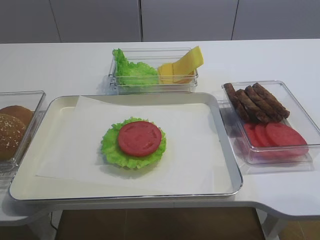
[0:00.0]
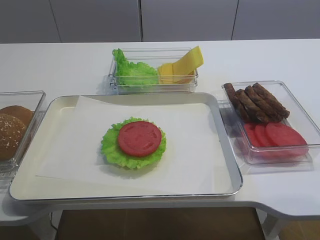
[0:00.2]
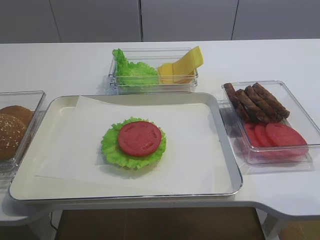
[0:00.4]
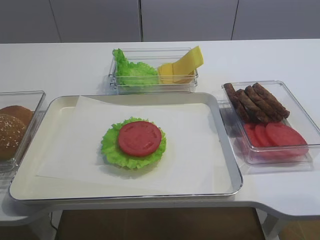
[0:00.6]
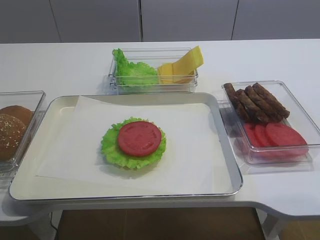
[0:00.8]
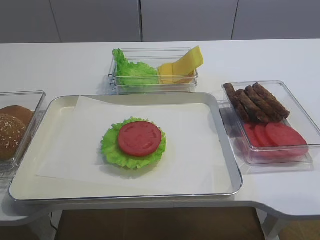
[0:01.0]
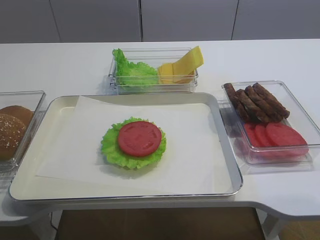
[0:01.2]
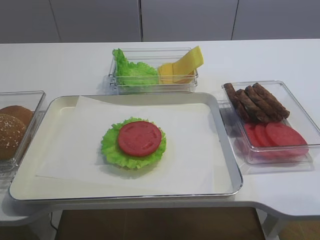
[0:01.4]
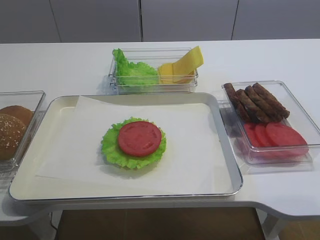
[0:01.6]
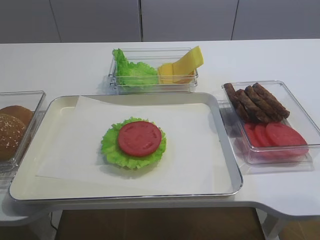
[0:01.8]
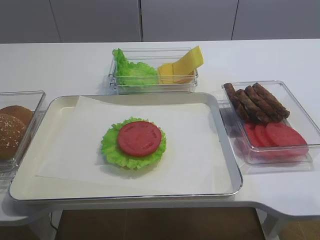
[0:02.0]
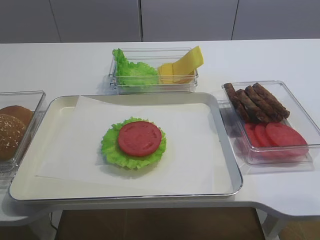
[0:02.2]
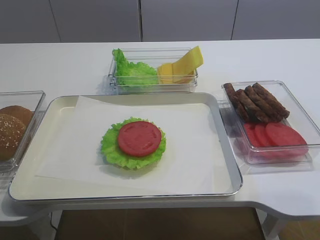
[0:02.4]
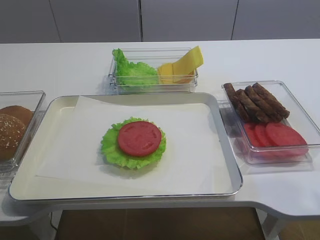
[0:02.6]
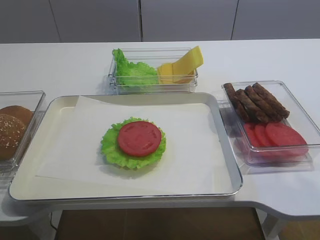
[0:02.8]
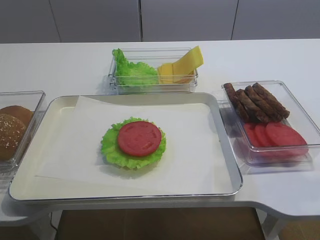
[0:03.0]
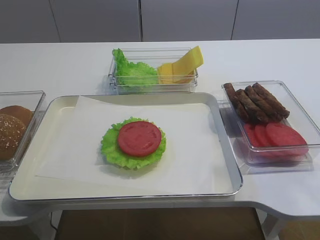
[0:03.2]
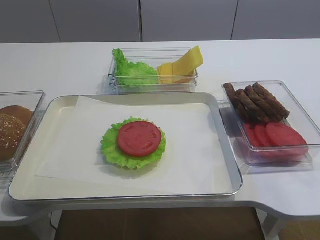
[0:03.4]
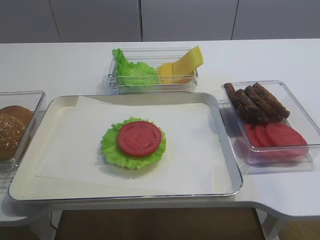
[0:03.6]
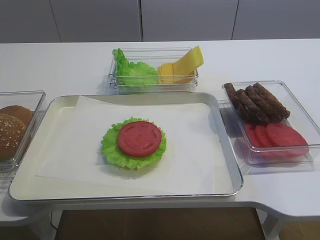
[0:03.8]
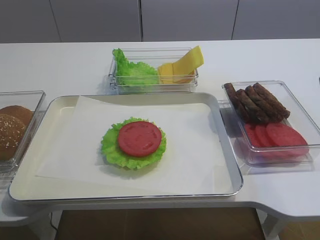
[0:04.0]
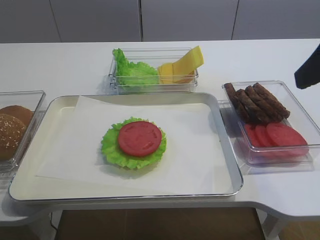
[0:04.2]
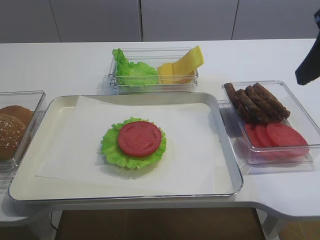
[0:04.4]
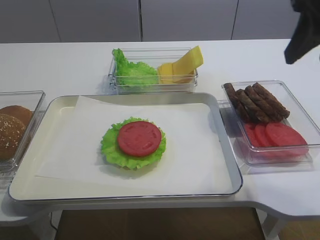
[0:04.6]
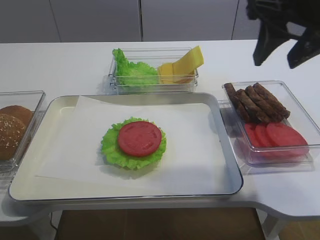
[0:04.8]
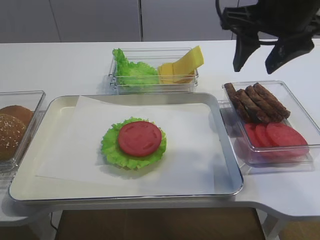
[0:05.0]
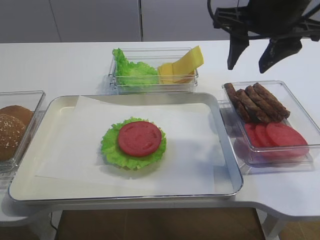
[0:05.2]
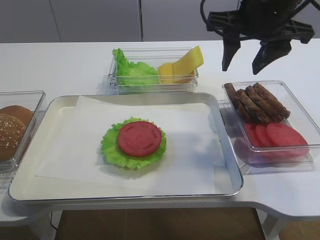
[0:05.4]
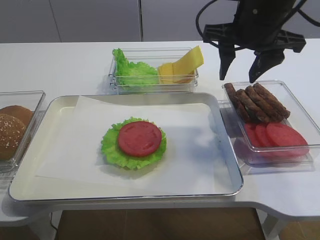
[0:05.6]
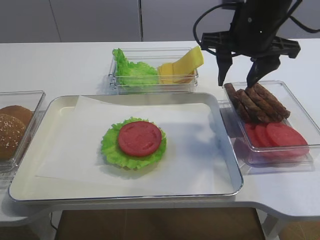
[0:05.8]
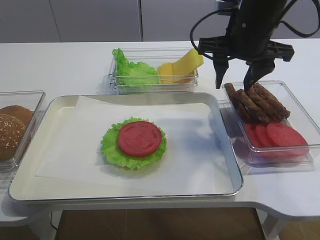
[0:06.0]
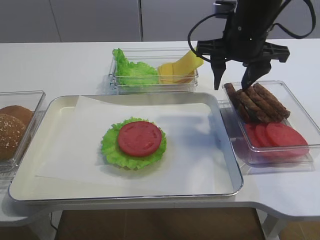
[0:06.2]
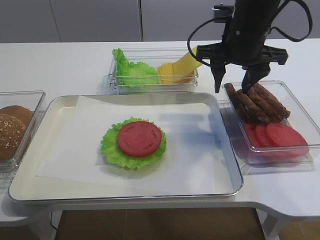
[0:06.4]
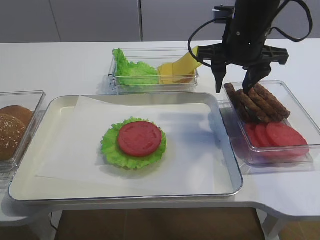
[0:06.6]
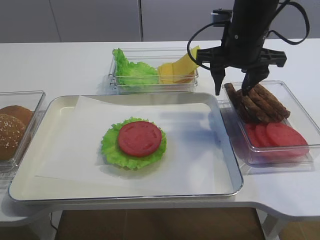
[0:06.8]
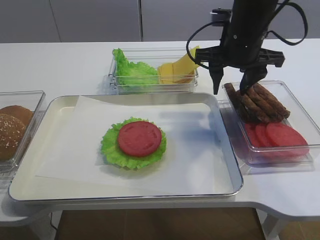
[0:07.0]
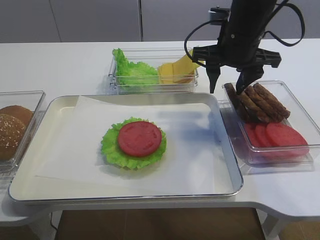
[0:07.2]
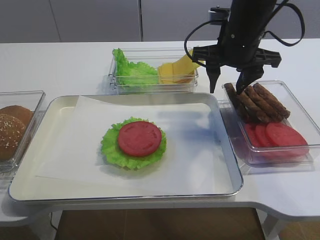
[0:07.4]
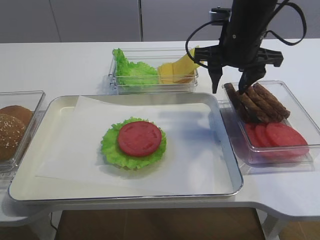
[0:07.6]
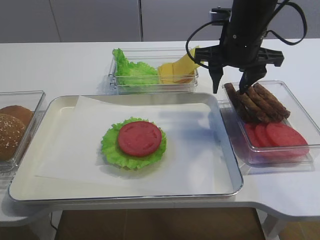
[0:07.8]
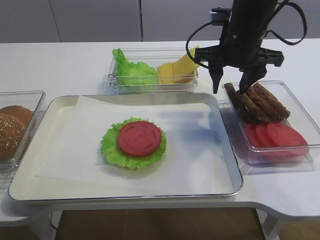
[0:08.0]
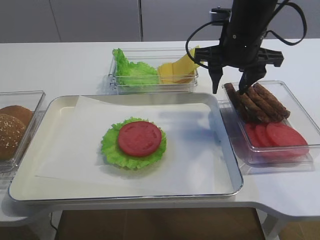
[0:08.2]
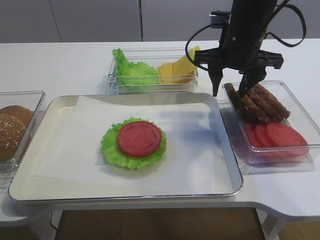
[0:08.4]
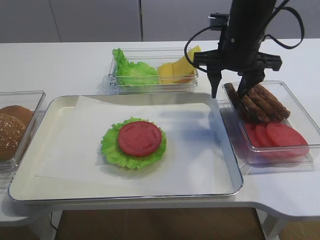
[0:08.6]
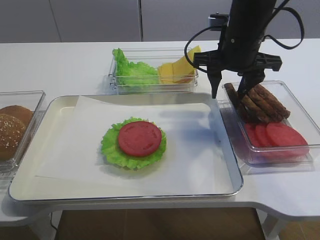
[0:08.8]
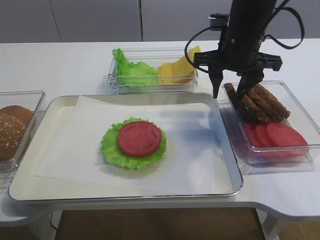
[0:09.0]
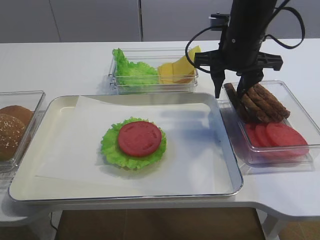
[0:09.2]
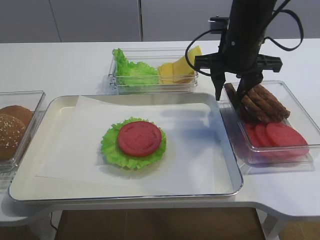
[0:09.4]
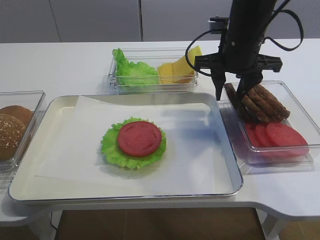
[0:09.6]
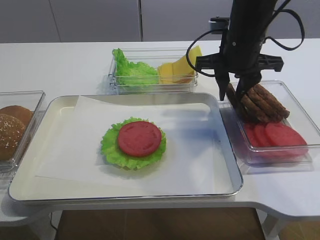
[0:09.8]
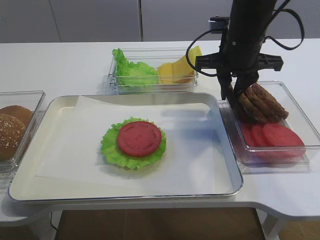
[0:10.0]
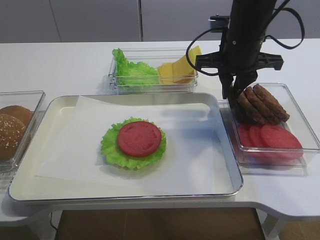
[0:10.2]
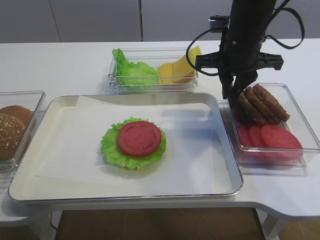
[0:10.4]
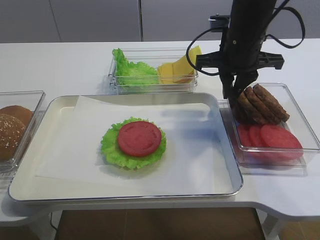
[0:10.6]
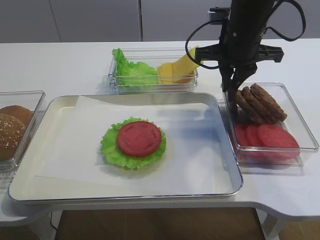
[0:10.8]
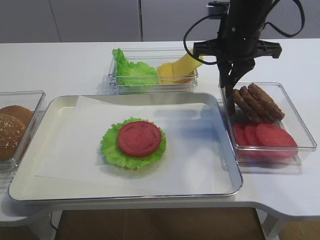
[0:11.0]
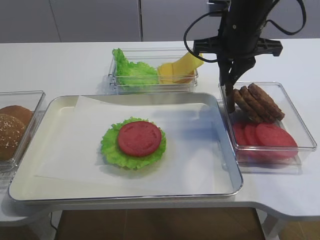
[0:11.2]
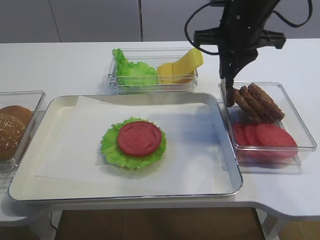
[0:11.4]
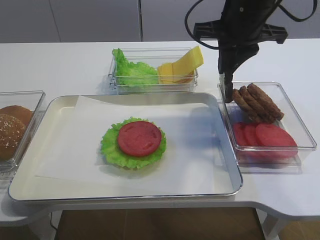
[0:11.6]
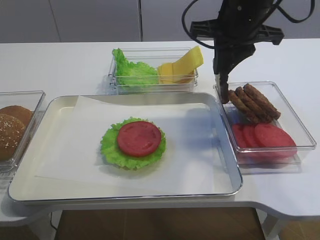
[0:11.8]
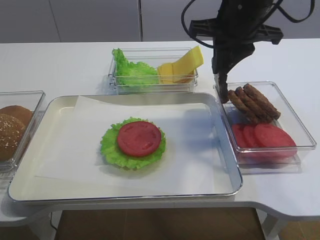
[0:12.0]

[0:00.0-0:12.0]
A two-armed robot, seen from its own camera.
Step, 0:00.0 to 0:11.2: Pick up the cutlet with the right gripper.
0:03.0 to 0:04.4: The right gripper shifts approximately 15 cm forward.
0:04.4 to 0:06.0: The right gripper heads forward, to the left and downward, covering approximately 20 cm.
0:06.0 to 0:07.6: The grippers make only small movements.
0:07.6 to 0:09.0: Both grippers stay put.
0:09.0 to 0:10.4: The right gripper closes its fingers.
0:10.4 to 0:12.0: The right gripper moves upward, roughly 5 cm.

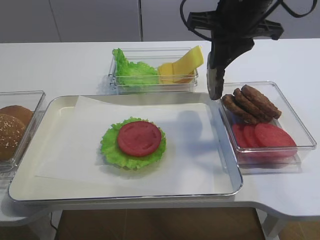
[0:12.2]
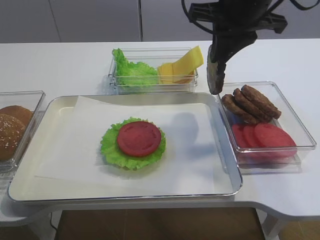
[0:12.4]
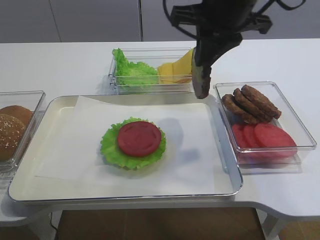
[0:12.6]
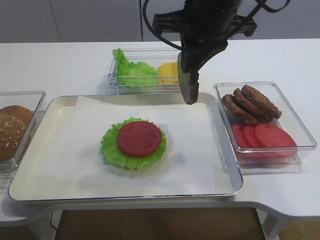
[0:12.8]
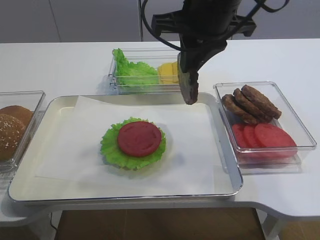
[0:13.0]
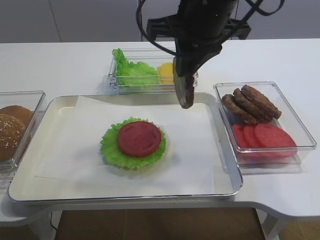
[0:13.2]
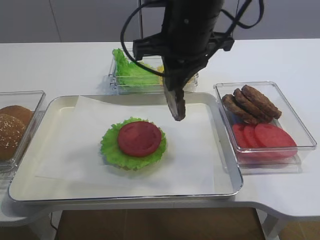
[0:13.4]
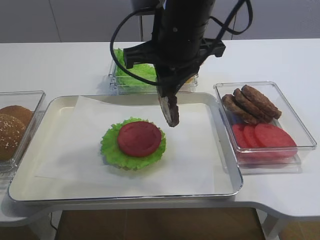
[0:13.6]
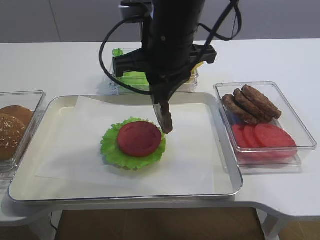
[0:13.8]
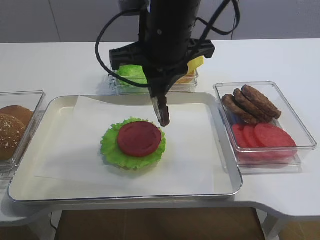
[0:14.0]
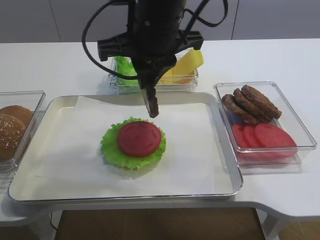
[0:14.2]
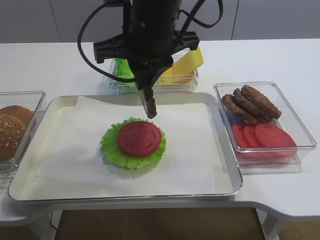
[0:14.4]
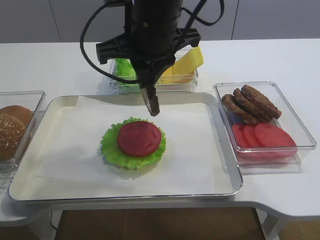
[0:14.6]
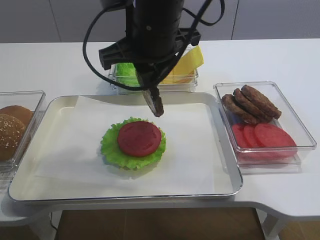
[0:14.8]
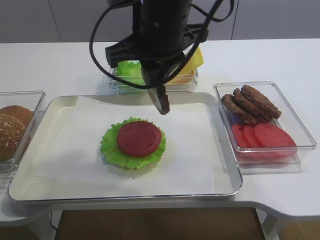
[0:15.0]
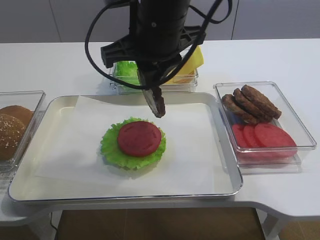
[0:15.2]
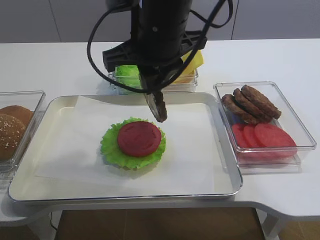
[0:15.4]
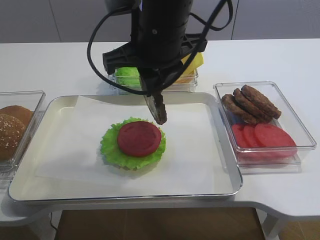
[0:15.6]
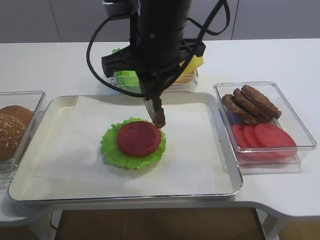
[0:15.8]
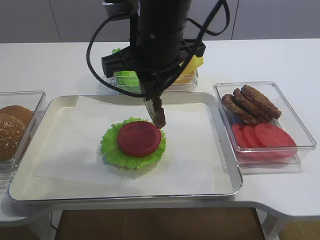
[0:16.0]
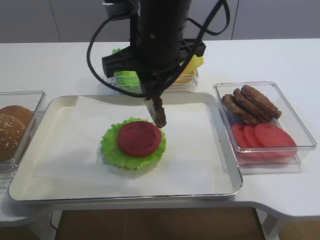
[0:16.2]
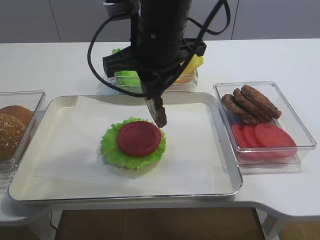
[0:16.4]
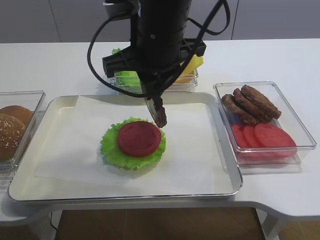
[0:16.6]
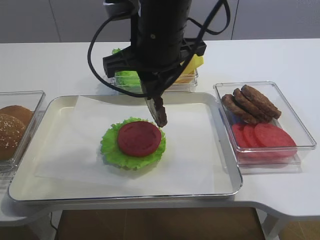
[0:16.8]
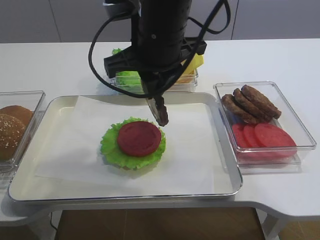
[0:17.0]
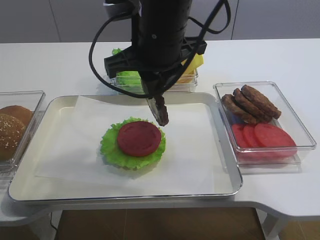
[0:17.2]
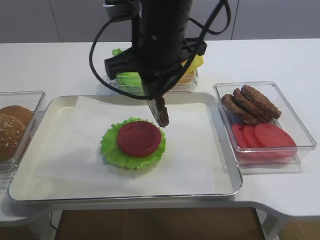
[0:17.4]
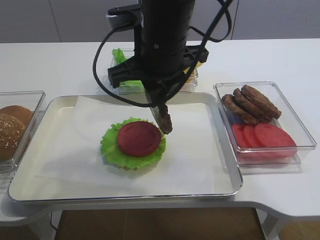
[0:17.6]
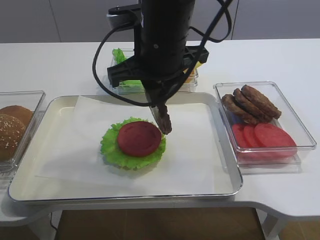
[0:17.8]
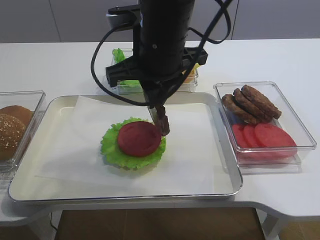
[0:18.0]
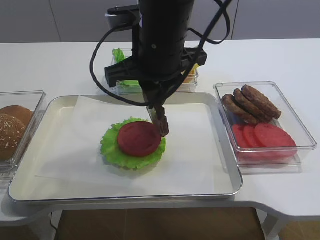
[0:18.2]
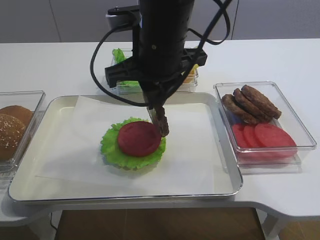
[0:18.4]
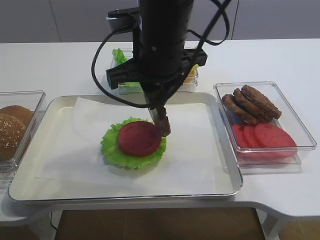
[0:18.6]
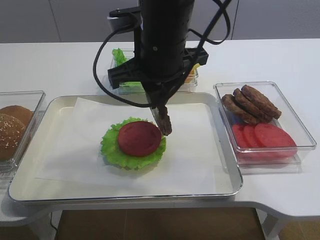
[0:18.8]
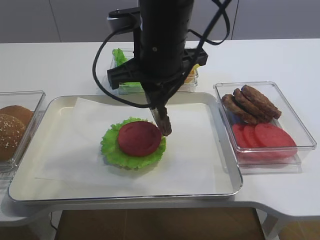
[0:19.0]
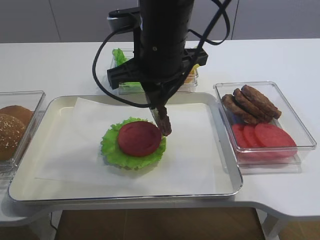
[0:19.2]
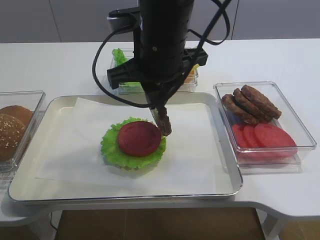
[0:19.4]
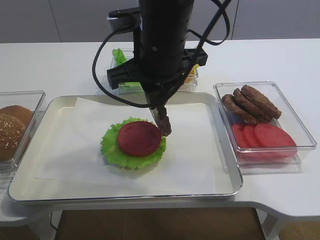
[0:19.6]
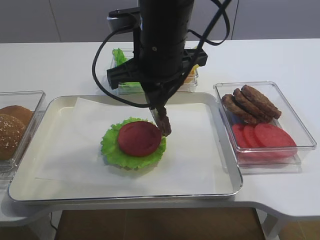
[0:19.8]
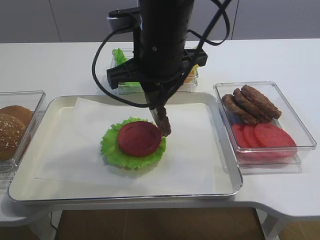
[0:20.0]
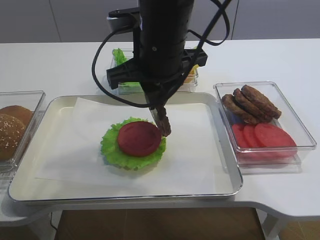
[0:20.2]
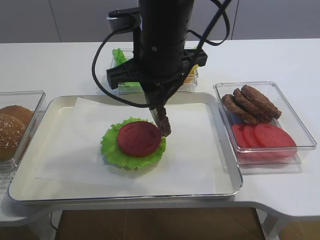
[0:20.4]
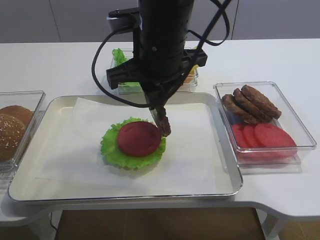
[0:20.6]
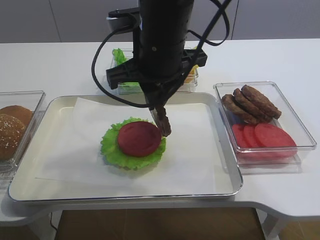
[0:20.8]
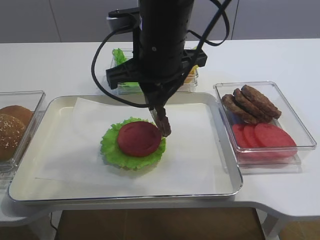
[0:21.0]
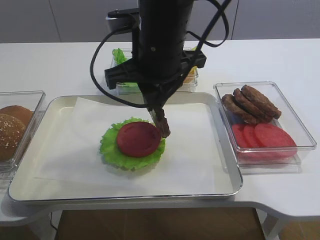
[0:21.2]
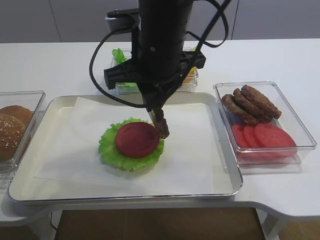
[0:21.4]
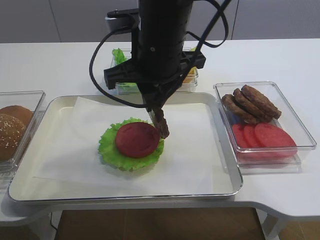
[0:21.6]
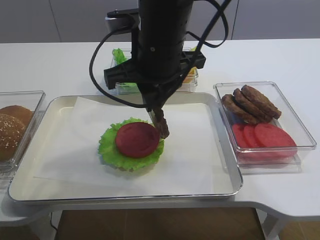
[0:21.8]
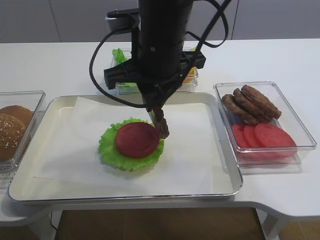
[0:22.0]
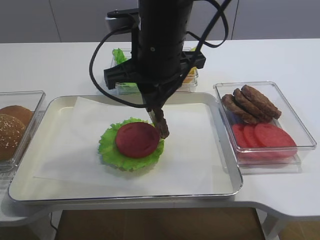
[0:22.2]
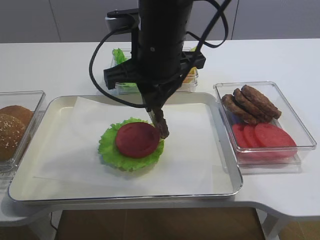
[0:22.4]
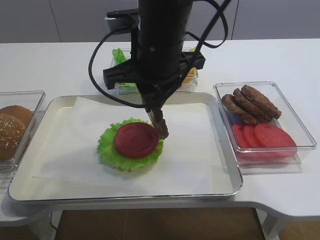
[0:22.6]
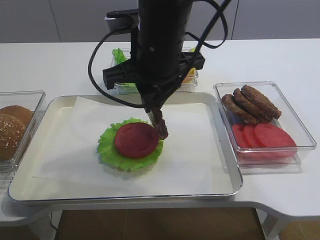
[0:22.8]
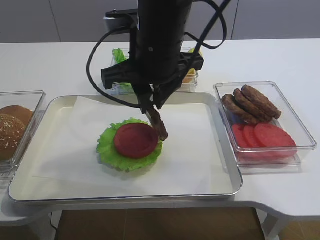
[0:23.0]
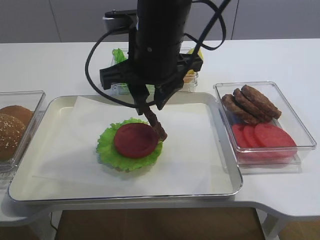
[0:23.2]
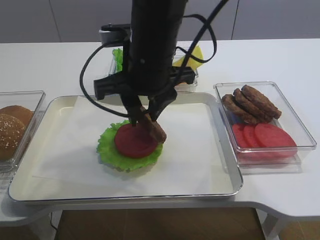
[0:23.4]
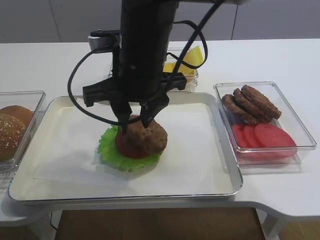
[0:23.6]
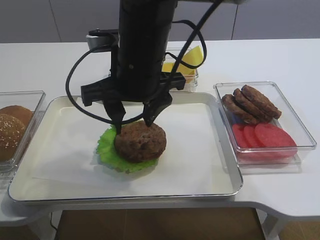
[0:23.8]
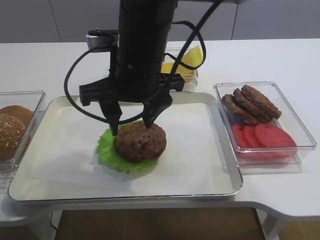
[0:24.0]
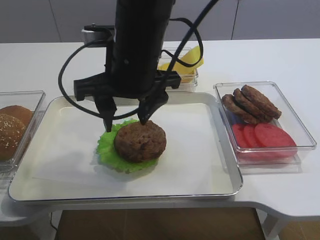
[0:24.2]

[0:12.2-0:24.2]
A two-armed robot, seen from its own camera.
0:12.2 to 0:13.8: The right gripper is displaced to the left and backward by about 10 cm.
0:13.8 to 0:15.2: The grippers make only small movements.
0:15.2 to 0:16.6: The two grippers keep their place.
0:16.6 to 0:19.8: The two grippers keep their place.
0:19.8 to 0:22.6: Both grippers stay put.
0:22.6 to 0:24.2: The right gripper opens its fingers.
